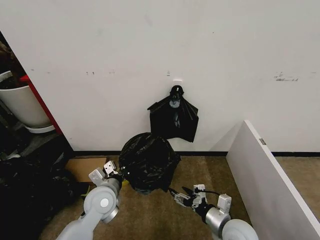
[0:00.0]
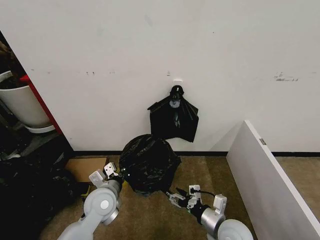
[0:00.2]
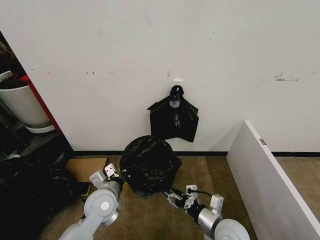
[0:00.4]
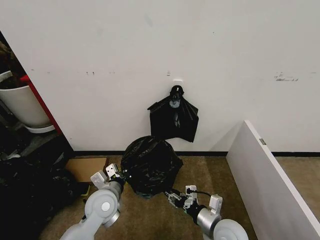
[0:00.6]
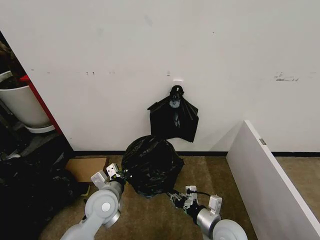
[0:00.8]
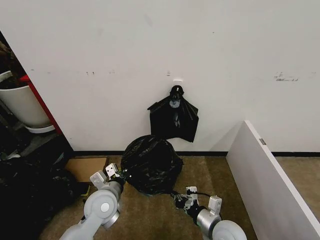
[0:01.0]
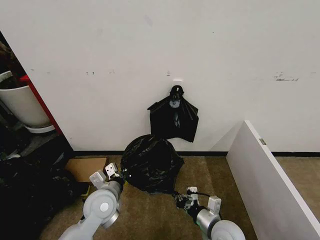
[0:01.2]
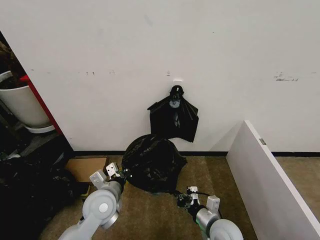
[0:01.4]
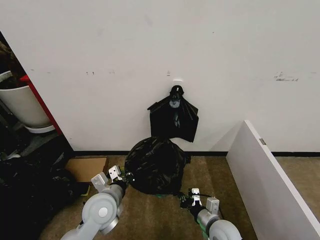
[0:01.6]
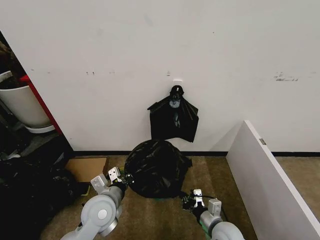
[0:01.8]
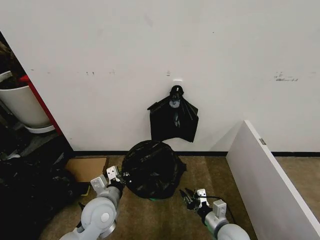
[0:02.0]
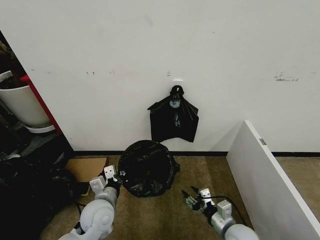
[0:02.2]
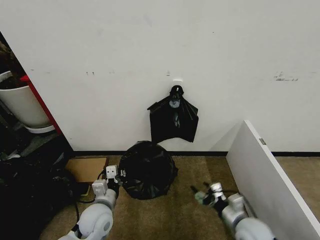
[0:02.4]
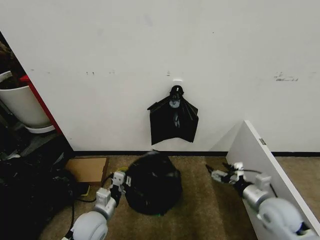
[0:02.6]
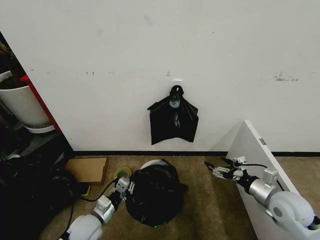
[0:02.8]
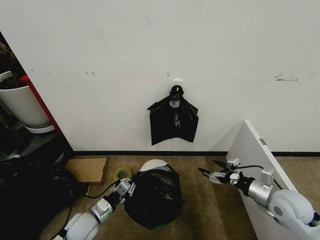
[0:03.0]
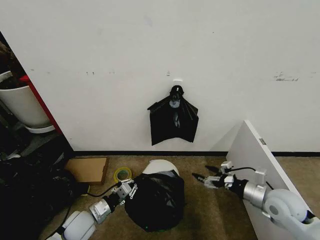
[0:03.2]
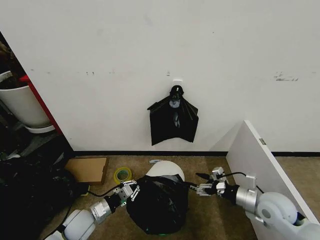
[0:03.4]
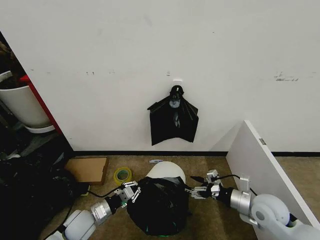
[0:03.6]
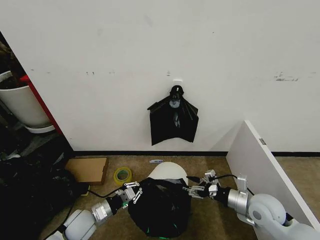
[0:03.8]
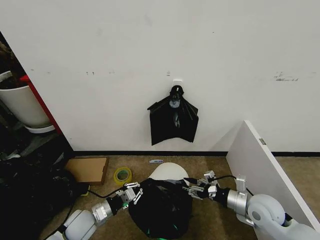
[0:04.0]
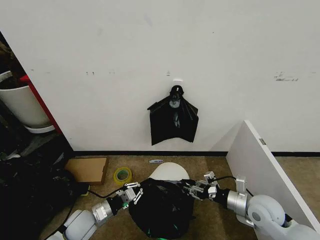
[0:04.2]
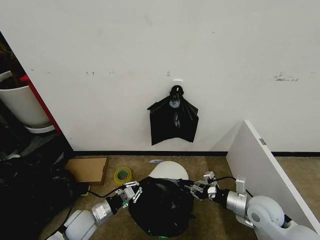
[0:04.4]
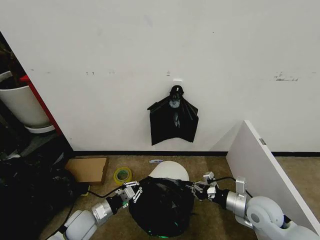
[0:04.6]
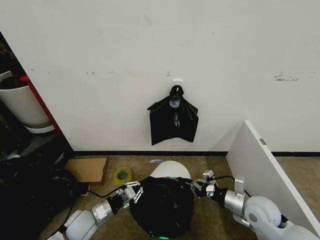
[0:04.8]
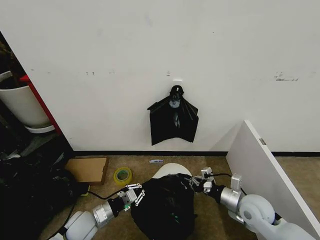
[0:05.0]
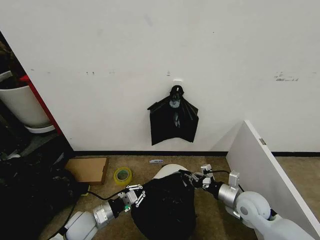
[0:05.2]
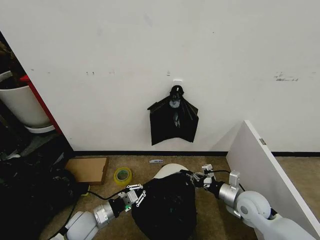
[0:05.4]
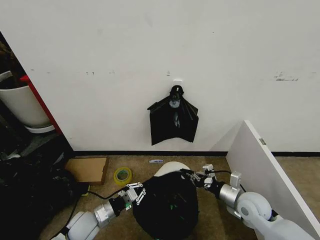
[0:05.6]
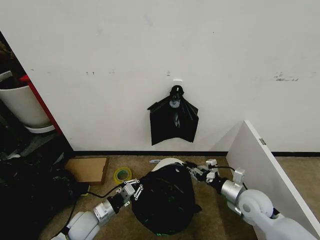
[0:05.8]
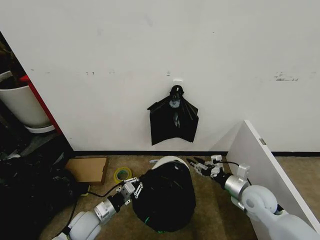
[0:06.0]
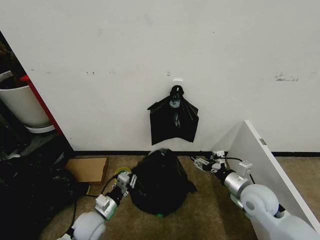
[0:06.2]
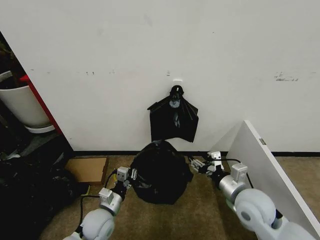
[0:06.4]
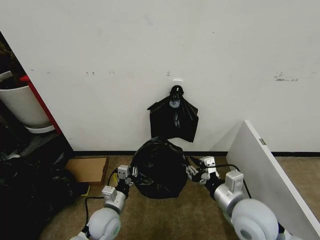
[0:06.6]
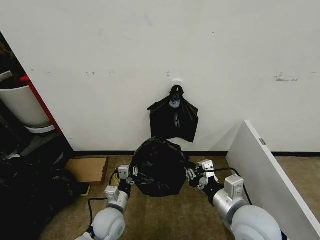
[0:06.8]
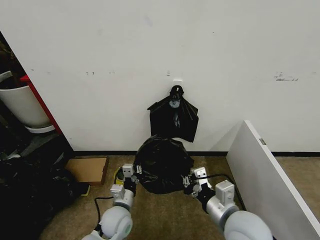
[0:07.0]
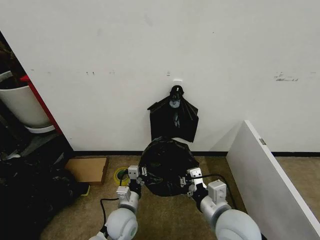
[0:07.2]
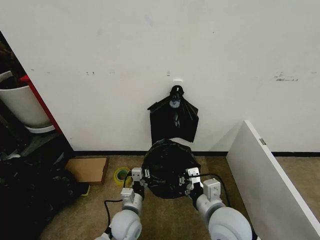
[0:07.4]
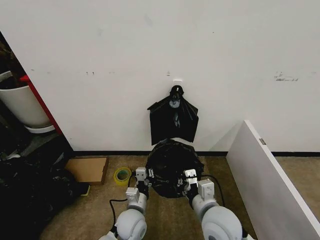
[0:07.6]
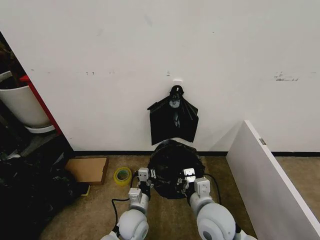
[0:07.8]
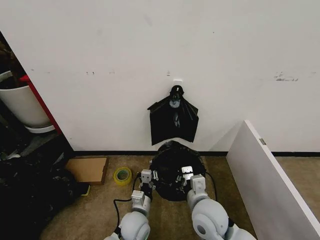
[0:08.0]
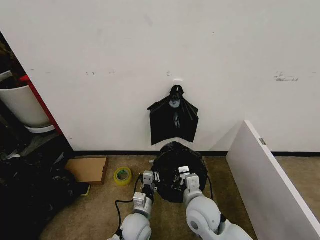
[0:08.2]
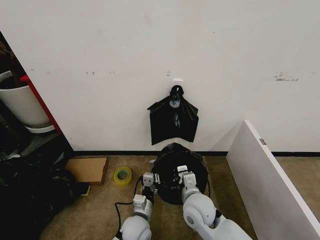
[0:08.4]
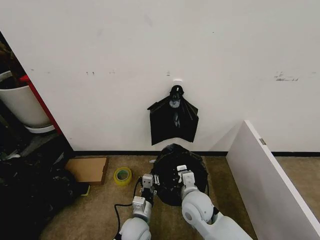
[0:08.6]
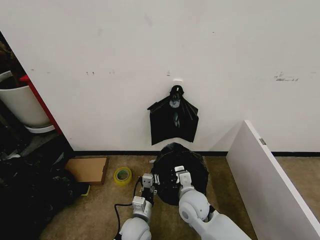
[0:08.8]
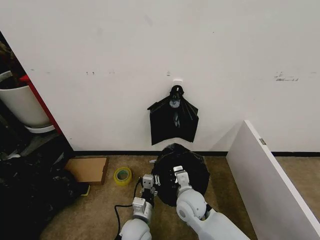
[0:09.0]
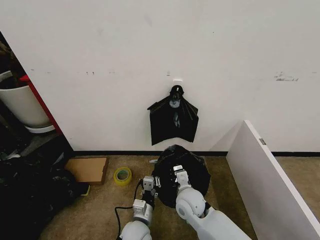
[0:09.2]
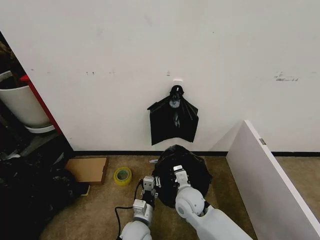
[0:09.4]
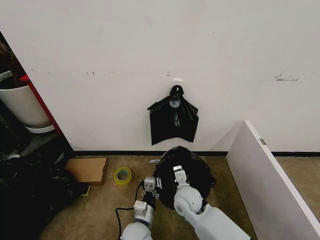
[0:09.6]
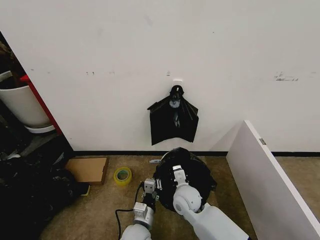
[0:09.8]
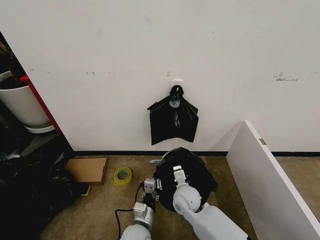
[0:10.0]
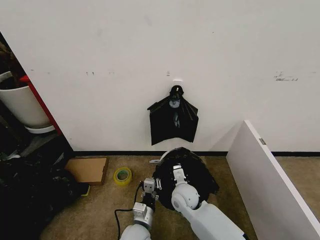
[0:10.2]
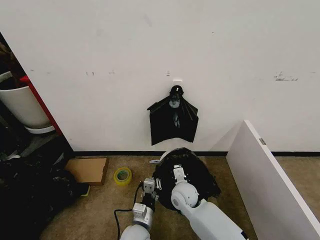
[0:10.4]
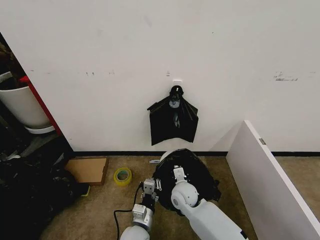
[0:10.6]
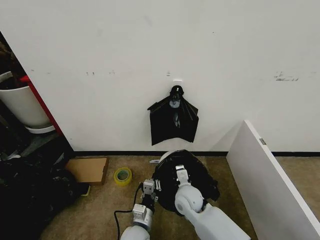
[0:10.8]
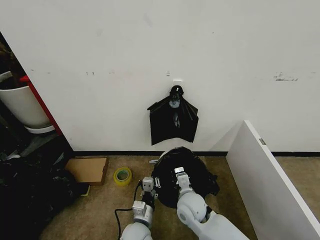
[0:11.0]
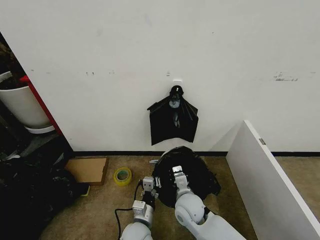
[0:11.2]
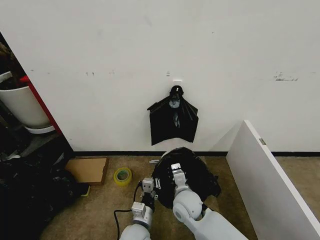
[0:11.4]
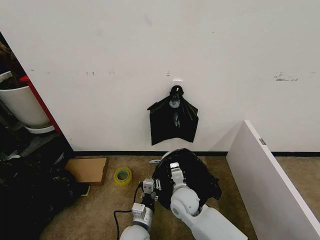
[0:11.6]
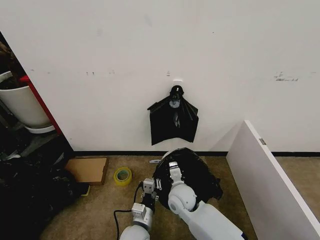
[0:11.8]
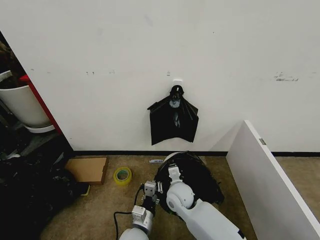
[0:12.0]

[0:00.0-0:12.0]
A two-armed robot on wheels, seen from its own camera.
Task of the whole recording: Place the garbage bag over the trash bin.
0:00.0 to 0:01.6: The right gripper is displaced downward by some 5 cm, and closes up.
0:01.6 to 0:03.0: The right gripper heads to the right and upward, covering some 20 cm, and opens, while the left gripper is displaced downward and to the left by approximately 15 cm.
0:03.0 to 0:04.4: The right gripper goes roughly 5 cm to the left, and closes.
0:04.4 to 0:06.0: The grippers make only small movements.
0:06.0 to 0:07.6: The right gripper shifts approximately 20 cm to the left and backward, and closes up, while the left gripper goes approximately 15 cm to the right.
0:07.6 to 0:09.0: The right gripper is displaced downward, forward and to the left by about 15 cm.
0:09.0 to 0:10.4: The right gripper ends up about 5 cm from where it was.
0:10.4 to 0:12.0: The grippers move only a little.

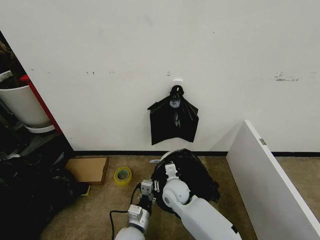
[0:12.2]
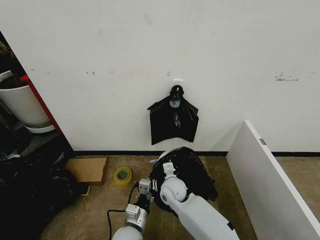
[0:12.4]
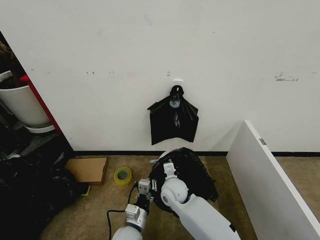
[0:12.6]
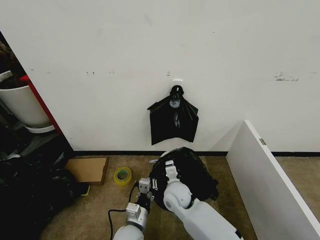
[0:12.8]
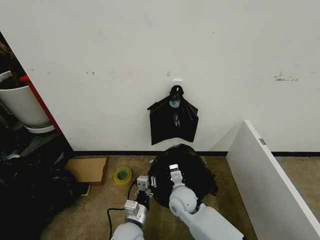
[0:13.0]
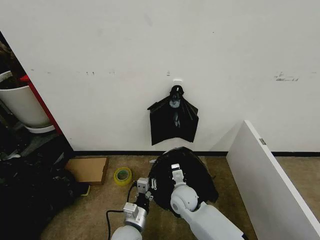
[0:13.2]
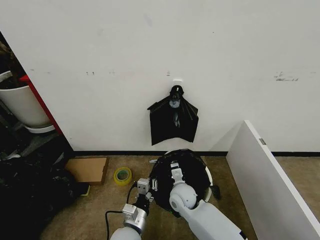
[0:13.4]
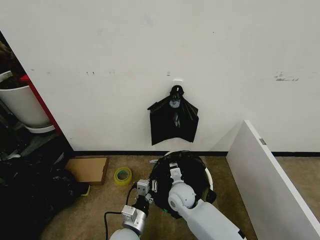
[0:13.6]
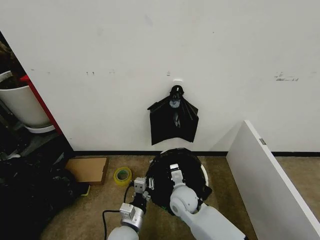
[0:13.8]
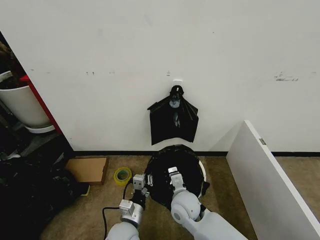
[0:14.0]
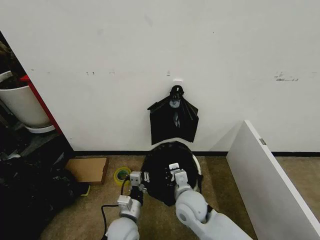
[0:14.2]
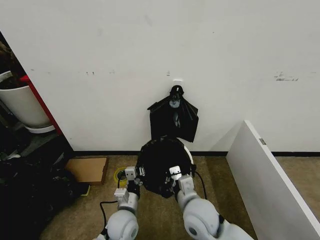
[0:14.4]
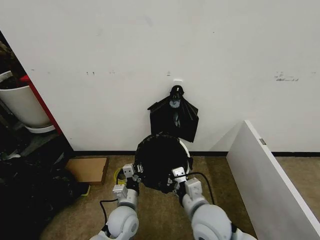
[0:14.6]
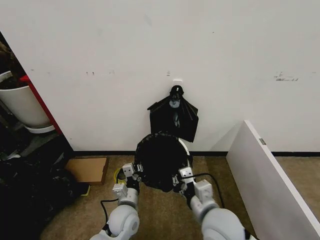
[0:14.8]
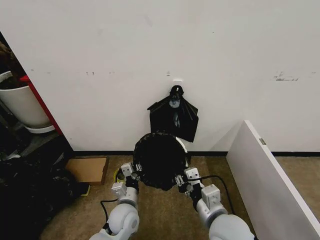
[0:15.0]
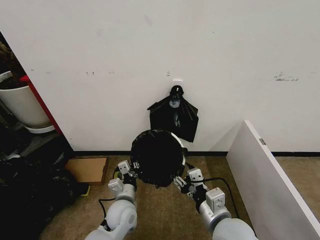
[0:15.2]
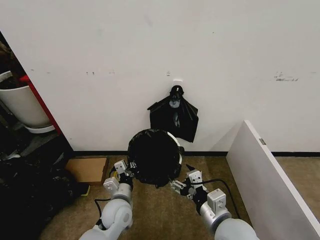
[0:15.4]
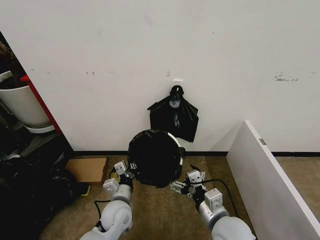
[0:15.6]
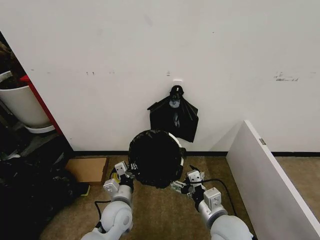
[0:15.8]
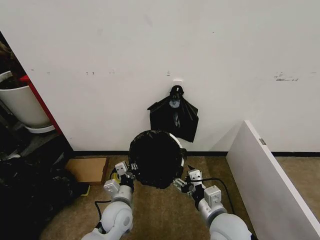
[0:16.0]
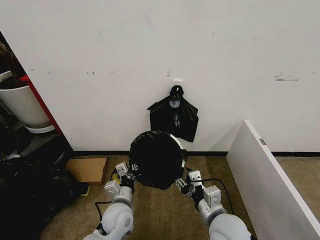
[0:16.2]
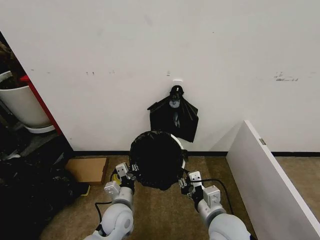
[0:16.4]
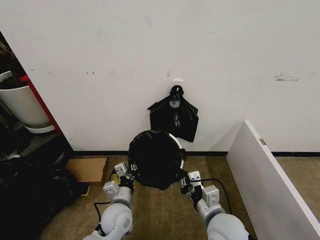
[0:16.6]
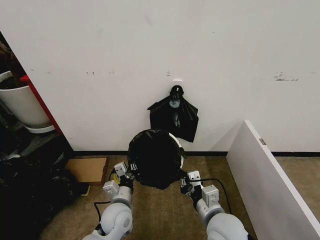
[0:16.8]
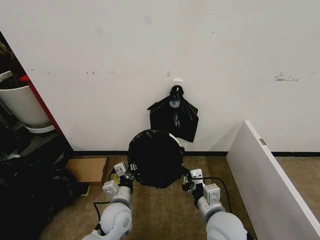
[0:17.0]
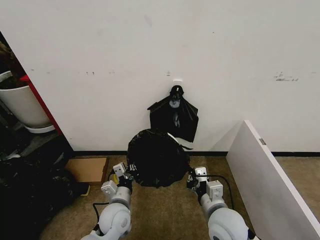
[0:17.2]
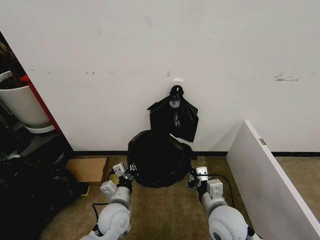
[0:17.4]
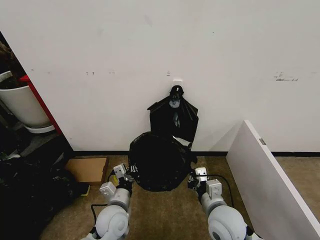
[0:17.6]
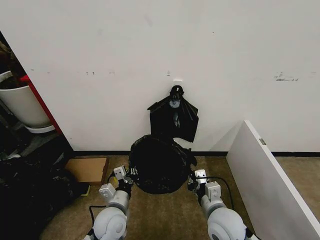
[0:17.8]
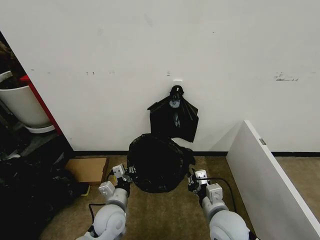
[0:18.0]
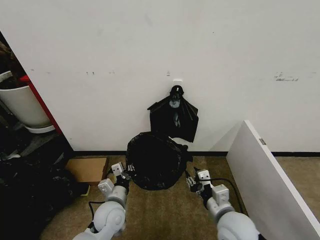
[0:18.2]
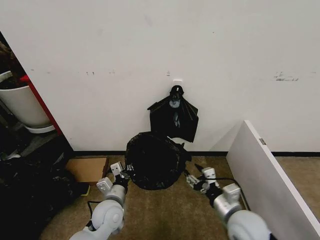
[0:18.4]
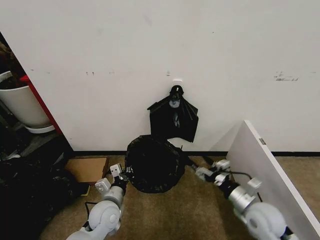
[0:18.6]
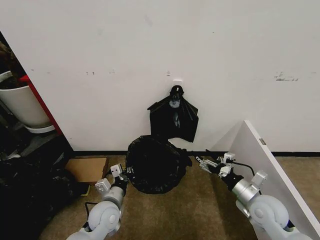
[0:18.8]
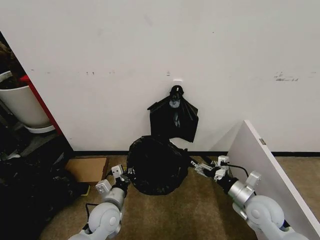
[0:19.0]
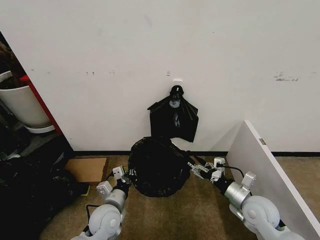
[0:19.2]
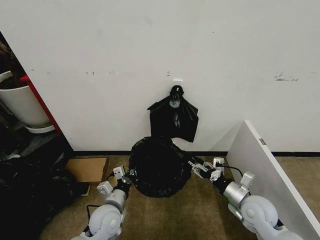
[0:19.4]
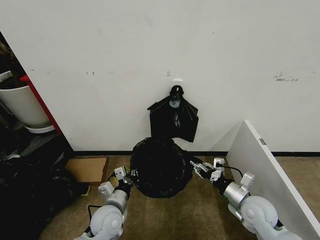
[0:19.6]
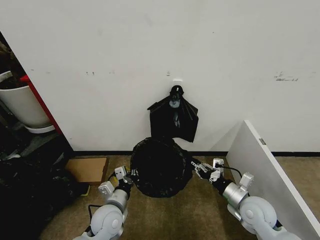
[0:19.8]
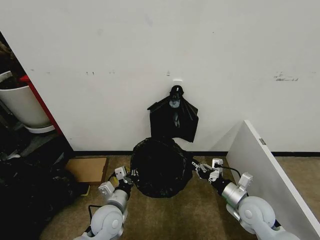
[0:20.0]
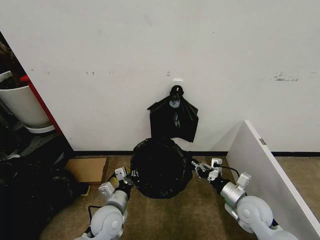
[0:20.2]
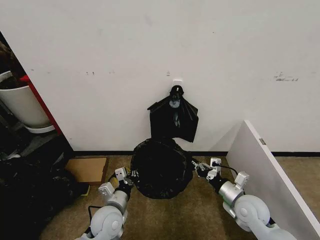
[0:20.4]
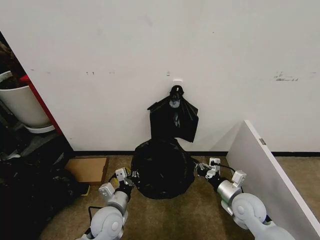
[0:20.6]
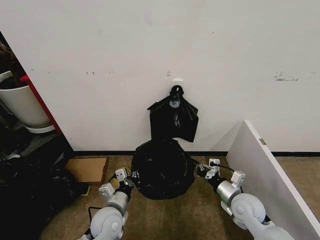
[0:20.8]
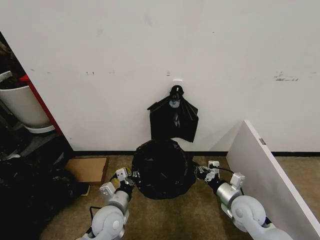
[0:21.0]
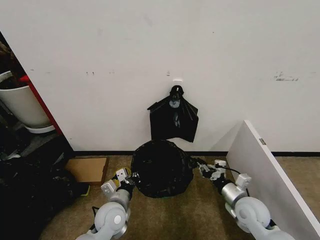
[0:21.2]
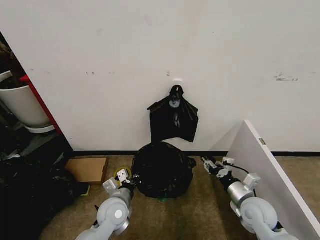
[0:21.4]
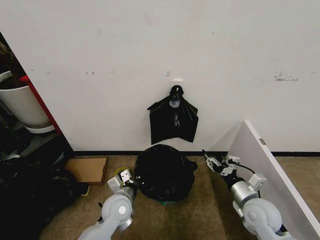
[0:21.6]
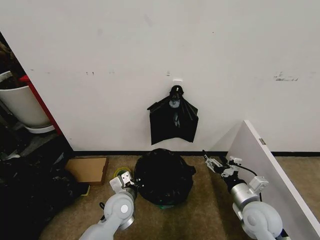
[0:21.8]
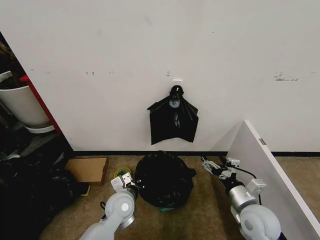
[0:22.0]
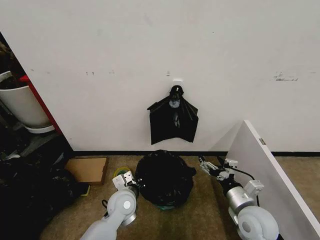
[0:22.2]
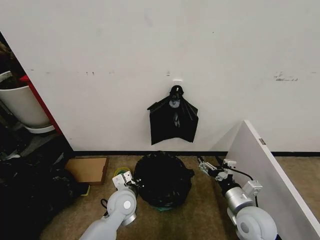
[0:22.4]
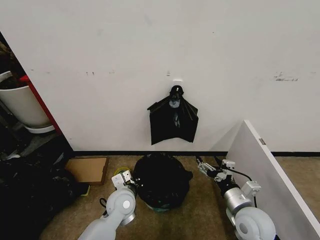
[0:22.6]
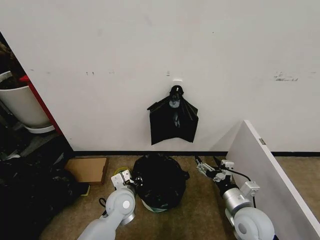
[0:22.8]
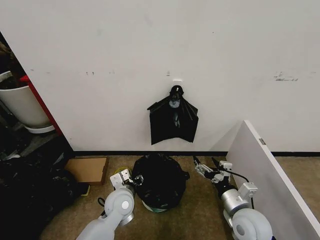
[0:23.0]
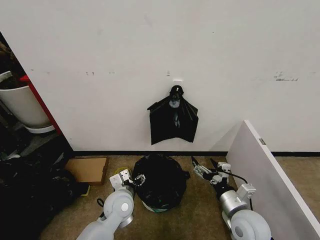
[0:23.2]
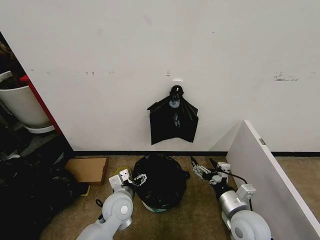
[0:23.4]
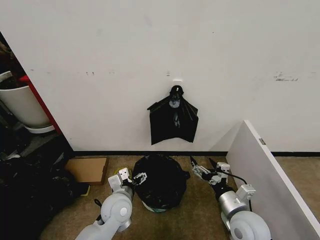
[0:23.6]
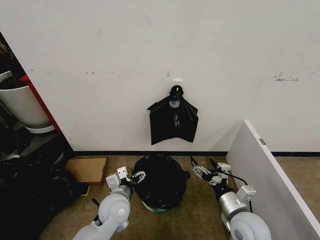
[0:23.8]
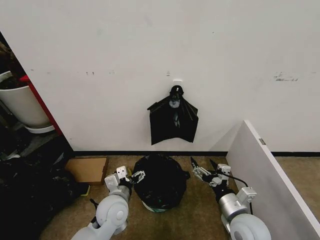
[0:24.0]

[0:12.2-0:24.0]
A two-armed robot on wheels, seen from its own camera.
Task of the whole recording: Place the garbage bag over the trash bin.
0:12.2 to 0:13.6: There are only small adjustments of the grippers.
0:13.6 to 0:15.2: The right gripper shifts some 25 cm backward, upward and to the right, and opens. Meanwhile the left gripper heads forward, covering some 10 cm.
0:15.2 to 0:16.6: The right gripper closes up.
0:16.6 to 0:18.2: The grippers make only small movements.
0:18.2 to 0:19.6: The right gripper shifts about 10 cm to the right and forward, and opens and closes again.
0:19.6 to 0:21.0: The right gripper closes up.
0:21.0 to 0:22.6: The left gripper travels forward by some 5 cm, while the right gripper changes place by about 5 cm, and opens.
0:22.6 to 0:24.0: The left gripper opens up.
